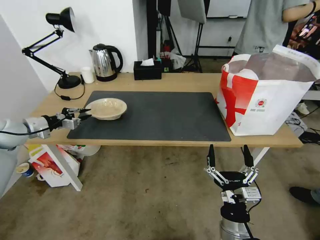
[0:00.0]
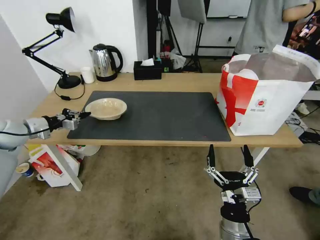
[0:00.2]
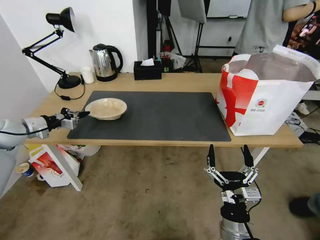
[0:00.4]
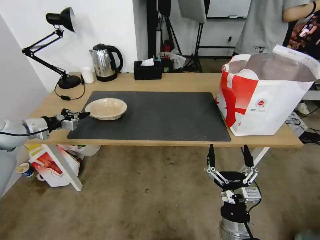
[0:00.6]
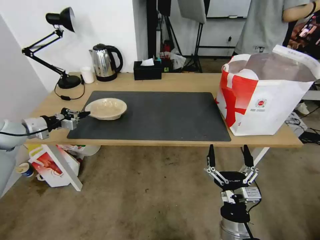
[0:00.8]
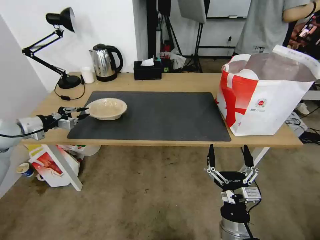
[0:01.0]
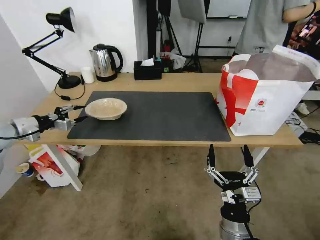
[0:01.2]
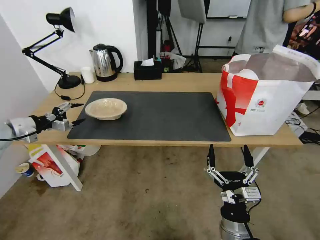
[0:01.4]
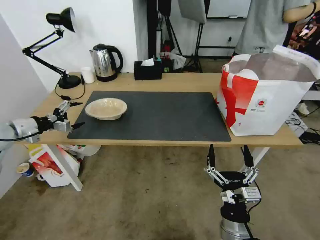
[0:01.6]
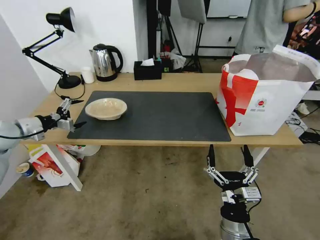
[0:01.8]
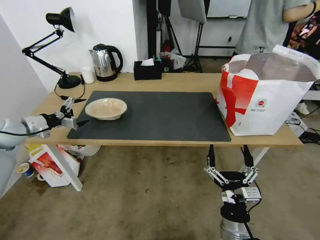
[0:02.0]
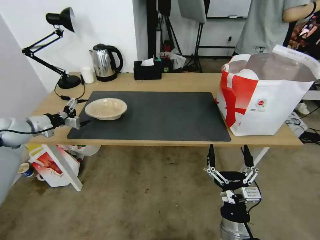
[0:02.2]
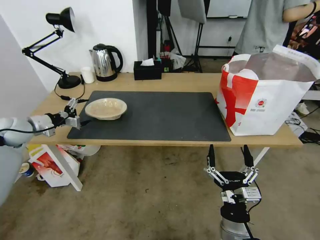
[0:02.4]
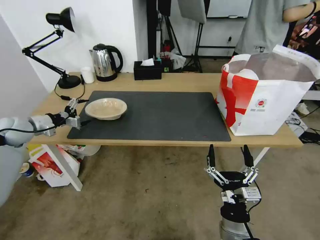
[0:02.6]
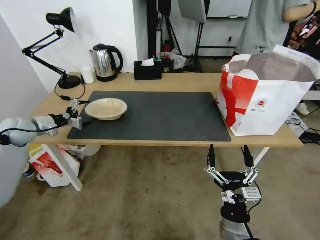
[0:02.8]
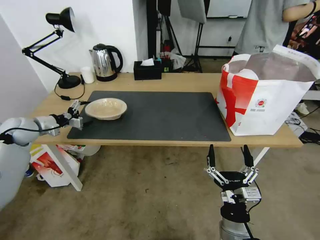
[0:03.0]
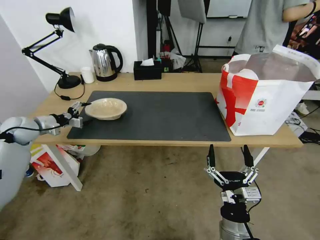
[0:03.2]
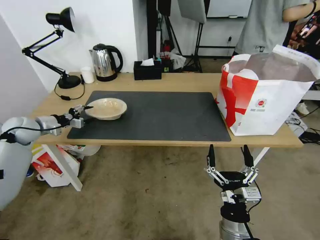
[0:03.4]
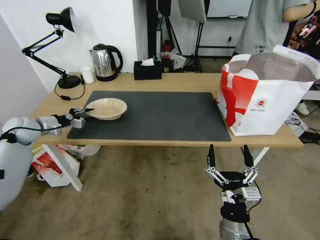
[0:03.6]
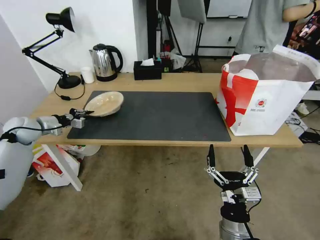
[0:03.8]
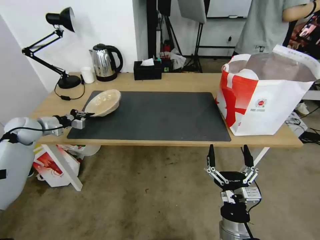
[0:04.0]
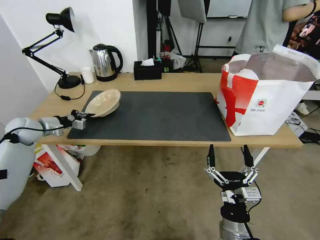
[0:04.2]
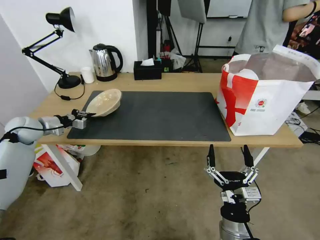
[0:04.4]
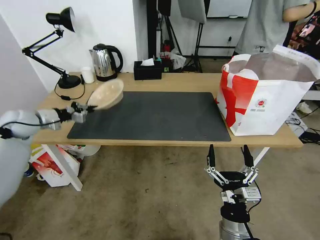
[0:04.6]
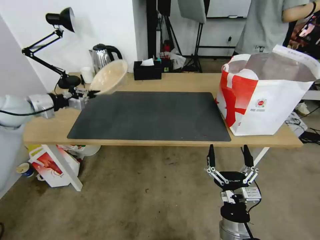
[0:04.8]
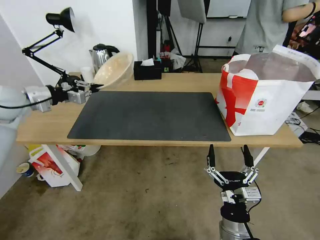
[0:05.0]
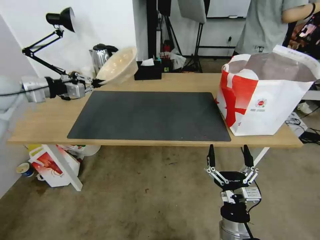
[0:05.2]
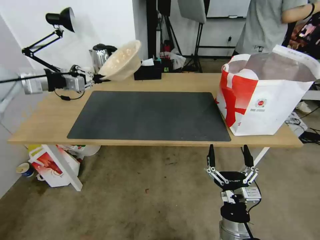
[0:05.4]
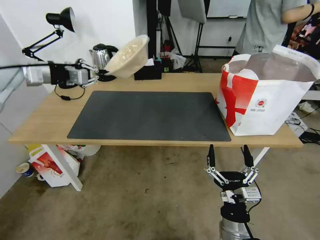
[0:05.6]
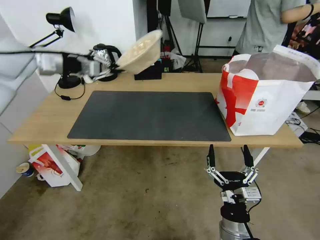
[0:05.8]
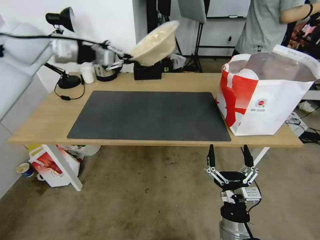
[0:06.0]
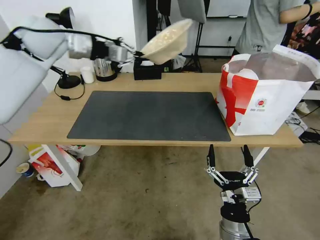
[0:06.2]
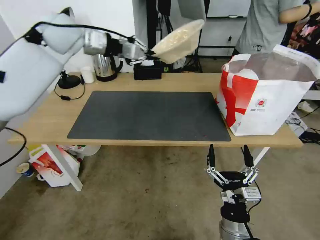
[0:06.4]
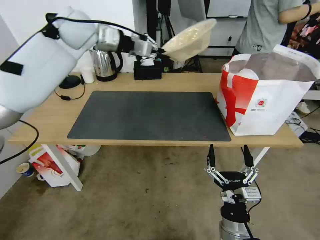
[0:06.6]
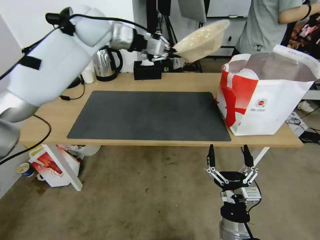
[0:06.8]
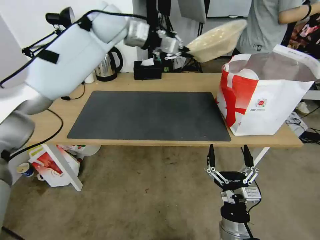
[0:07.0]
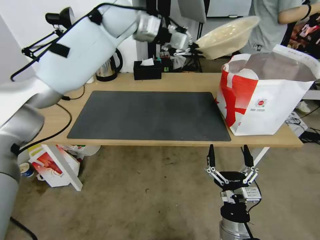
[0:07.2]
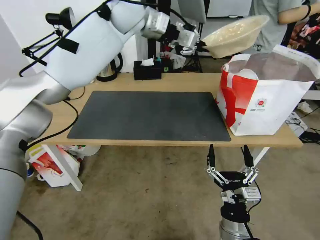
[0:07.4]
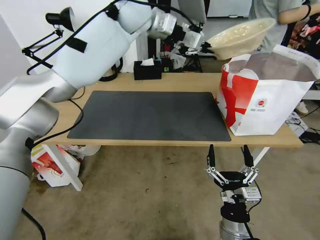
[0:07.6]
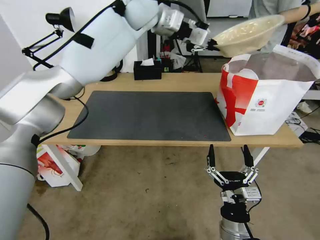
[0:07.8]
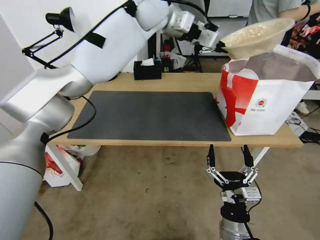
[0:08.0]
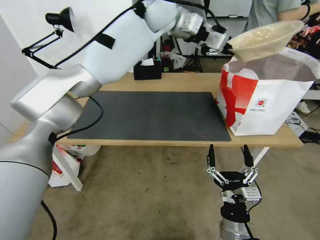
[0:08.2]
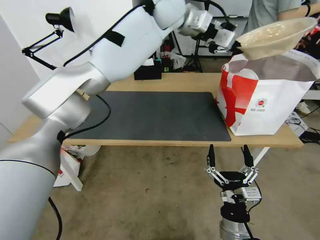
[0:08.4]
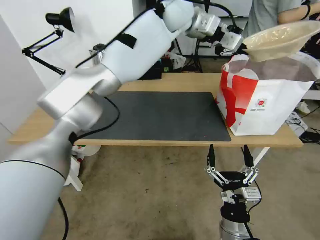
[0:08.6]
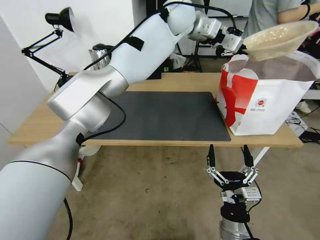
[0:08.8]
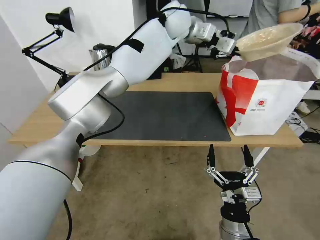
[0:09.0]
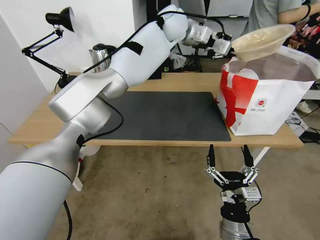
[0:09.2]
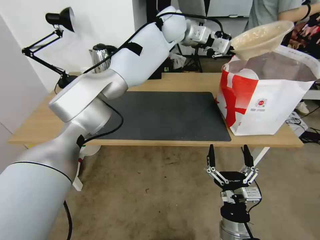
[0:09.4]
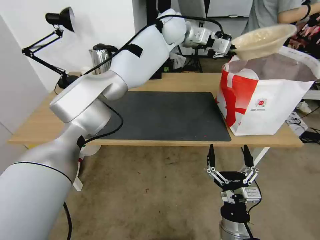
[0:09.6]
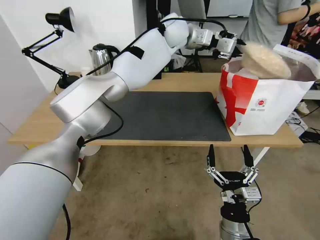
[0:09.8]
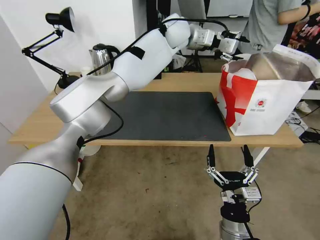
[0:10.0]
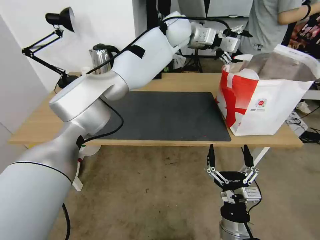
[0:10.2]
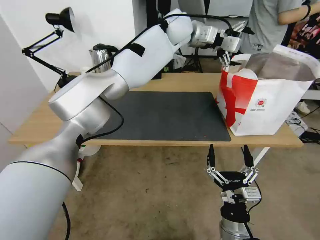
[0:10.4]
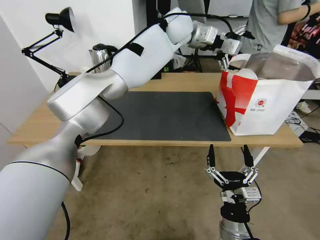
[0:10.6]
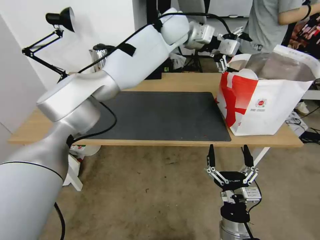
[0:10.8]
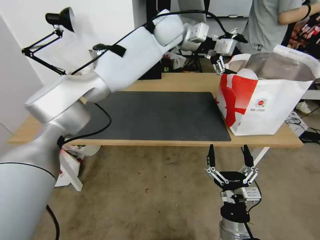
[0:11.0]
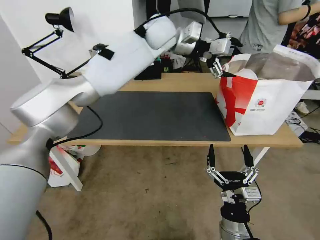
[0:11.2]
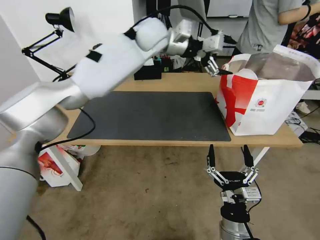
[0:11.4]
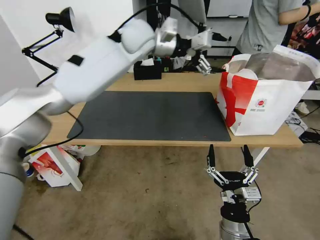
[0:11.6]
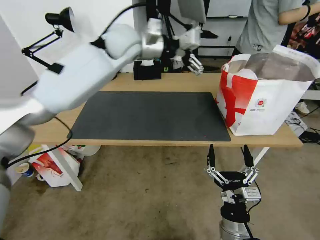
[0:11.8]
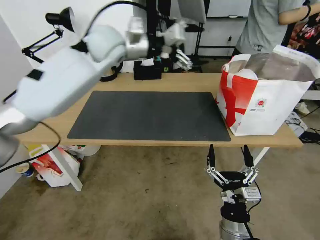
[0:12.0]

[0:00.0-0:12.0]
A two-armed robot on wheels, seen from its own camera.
Task of the whole recording: Pick up the trash from the table and place it into the takeout bag.
0:00.0 to 0:01.6: The left gripper opens.
0:01.6 to 0:03.0: The left gripper shifts about 10 cm forward and downward.
0:03.0 to 0:04.4: The left gripper closes.
0:04.4 to 0:06.0: The left gripper travels upward and to the right by about 30 cm.
0:06.0 to 0:07.6: The left gripper shifts approximately 25 cm to the right.
0:07.6 to 0:09.0: The left gripper goes some 10 cm to the right.
0:09.0 to 0:10.4: The left gripper opens up.
0:10.4 to 0:12.0: The left gripper goes about 25 cm to the left and backward.

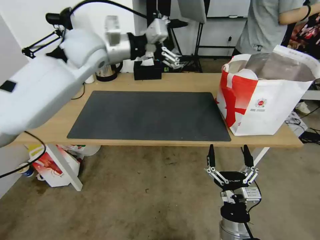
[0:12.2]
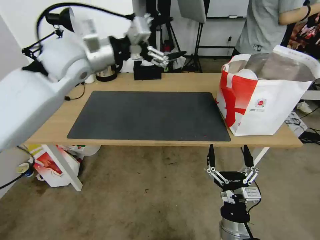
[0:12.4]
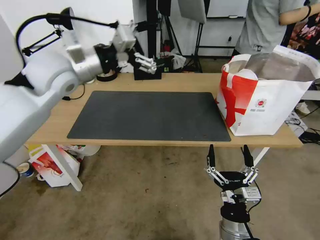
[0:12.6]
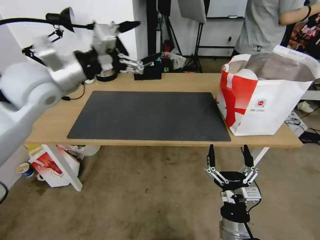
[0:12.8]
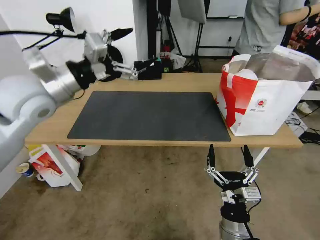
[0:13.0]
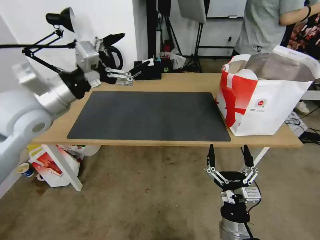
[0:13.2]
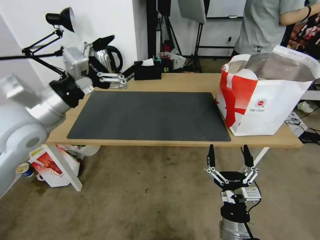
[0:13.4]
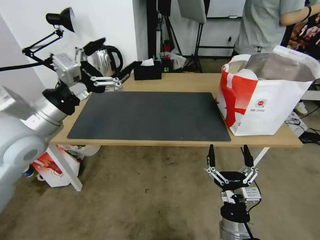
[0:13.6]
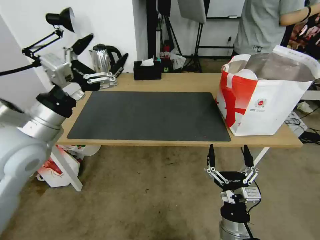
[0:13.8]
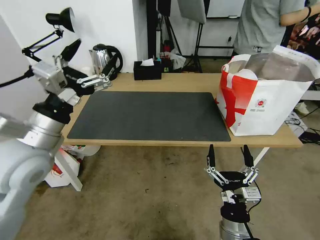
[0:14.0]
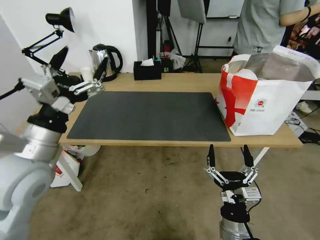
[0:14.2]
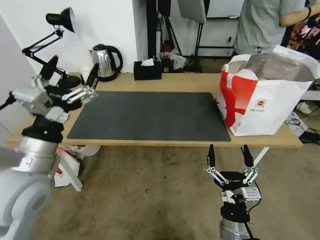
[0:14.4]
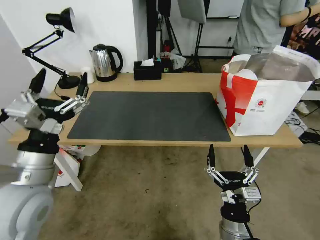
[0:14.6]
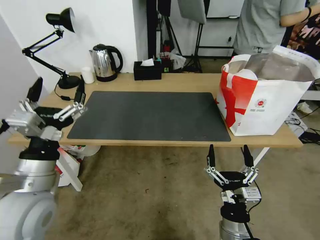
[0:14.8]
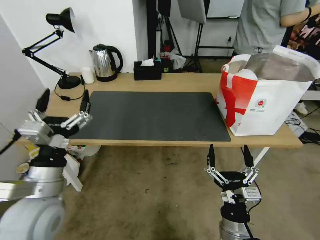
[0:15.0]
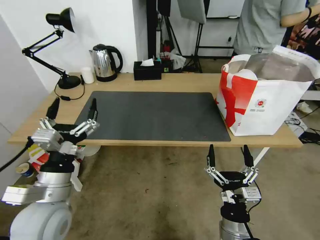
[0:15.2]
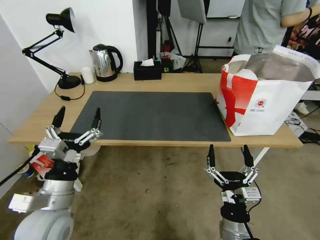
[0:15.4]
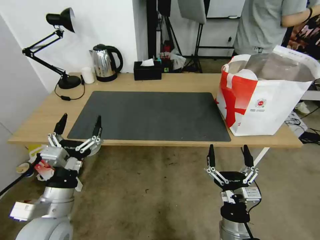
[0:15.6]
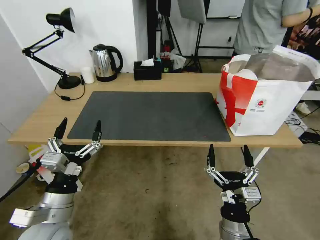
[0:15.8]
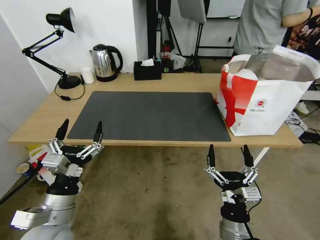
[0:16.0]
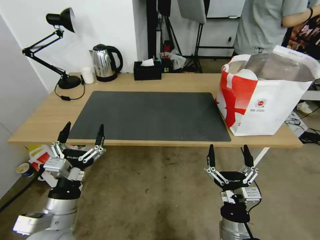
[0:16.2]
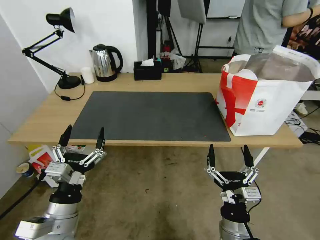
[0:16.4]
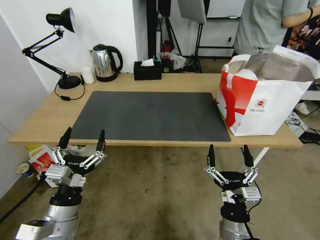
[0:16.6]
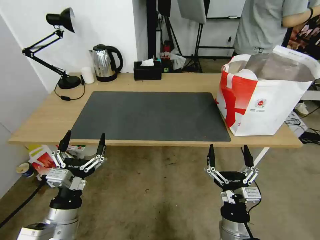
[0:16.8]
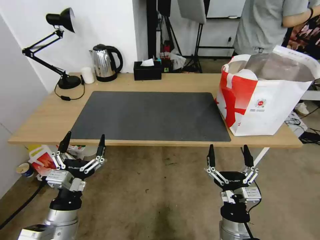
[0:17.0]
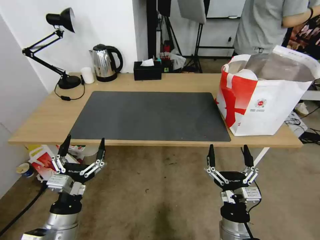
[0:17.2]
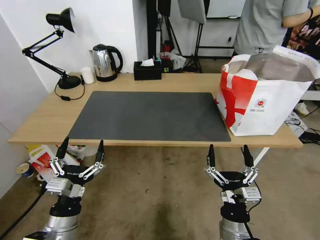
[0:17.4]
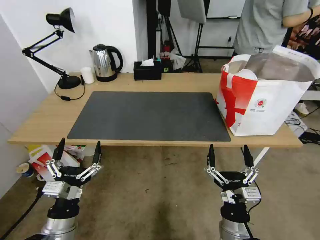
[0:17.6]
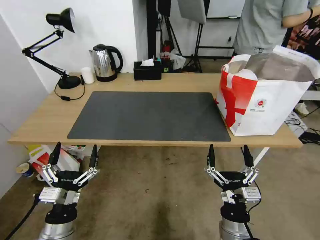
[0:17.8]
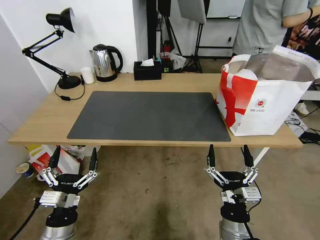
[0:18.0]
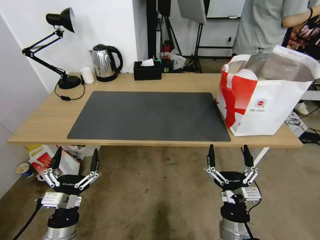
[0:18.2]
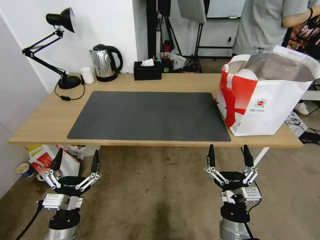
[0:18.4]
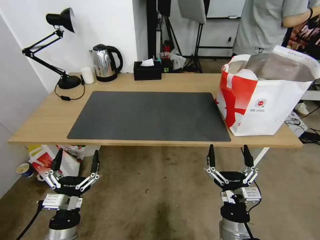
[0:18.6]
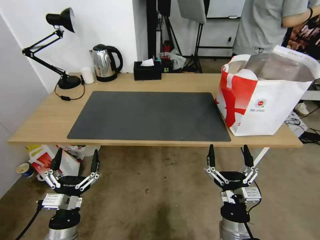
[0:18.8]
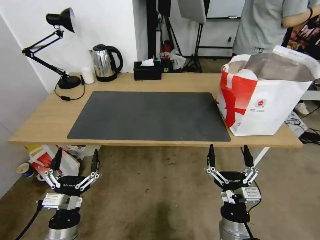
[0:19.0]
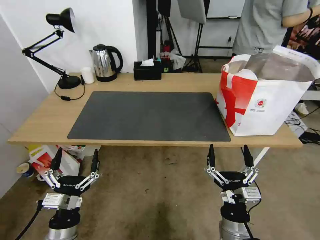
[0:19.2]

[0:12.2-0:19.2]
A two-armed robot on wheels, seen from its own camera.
Task of the whole recording: Pick up the trash from the table and place it into the takeout bag.
0:12.2 to 0:13.6: The left gripper is displaced backward, to the left and downward by some 25 cm.
0:13.6 to 0:15.0: The left gripper heads downward and backward, covering approximately 15 cm.
0:15.0 to 0:16.4: The left gripper goes roughly 10 cm downward.
0:16.4 to 0:17.8: The left gripper is displaced downward by roughly 5 cm.
0:17.8 to 0:19.2: The grippers stay close to where they were, moving slightly.
